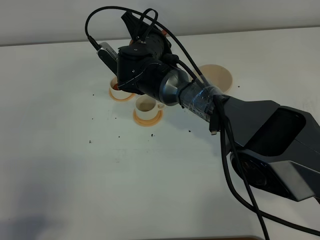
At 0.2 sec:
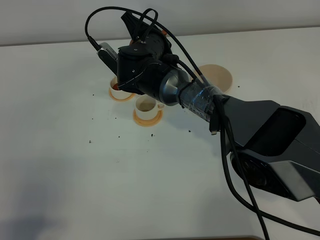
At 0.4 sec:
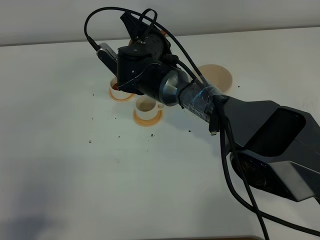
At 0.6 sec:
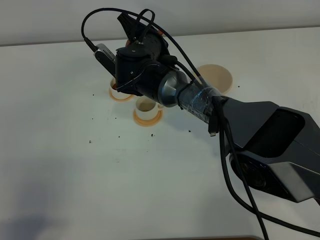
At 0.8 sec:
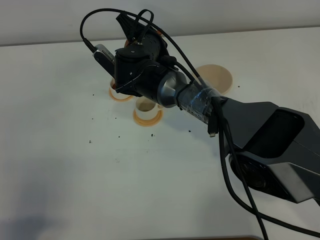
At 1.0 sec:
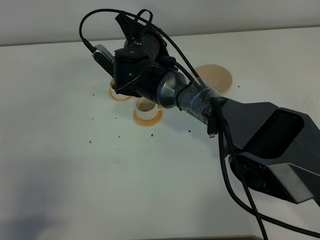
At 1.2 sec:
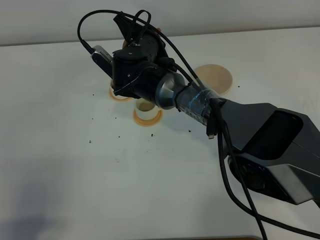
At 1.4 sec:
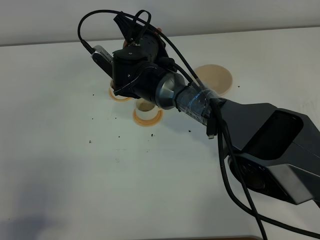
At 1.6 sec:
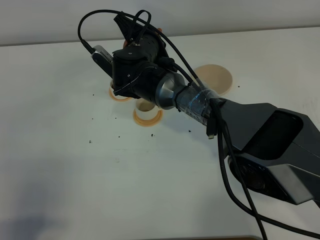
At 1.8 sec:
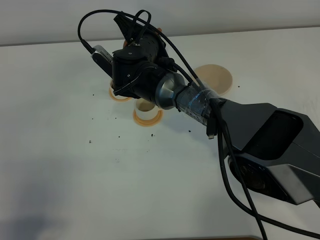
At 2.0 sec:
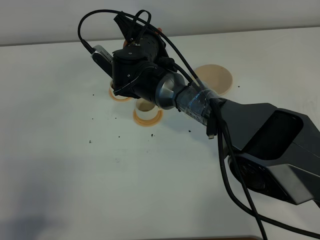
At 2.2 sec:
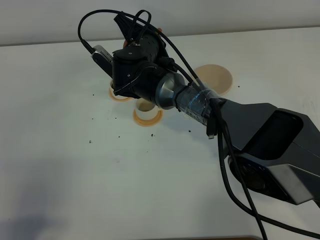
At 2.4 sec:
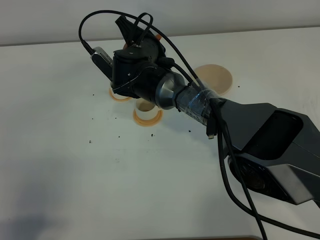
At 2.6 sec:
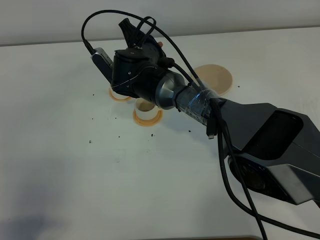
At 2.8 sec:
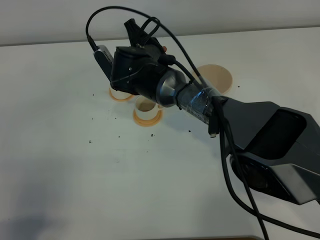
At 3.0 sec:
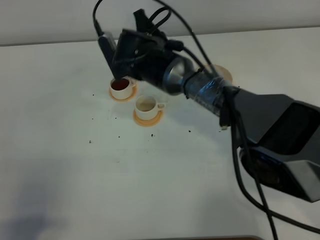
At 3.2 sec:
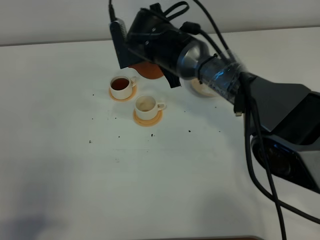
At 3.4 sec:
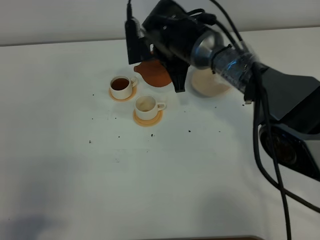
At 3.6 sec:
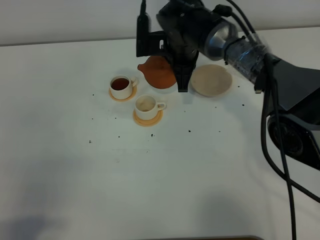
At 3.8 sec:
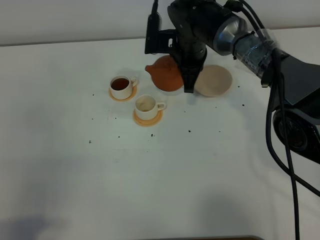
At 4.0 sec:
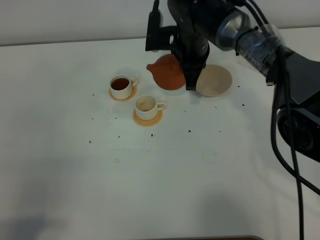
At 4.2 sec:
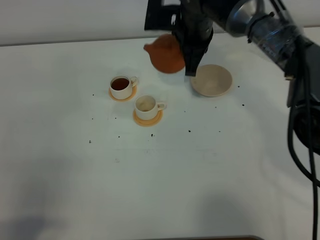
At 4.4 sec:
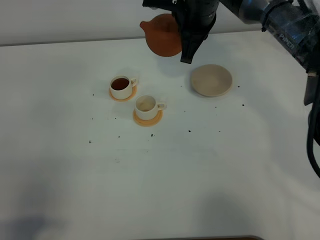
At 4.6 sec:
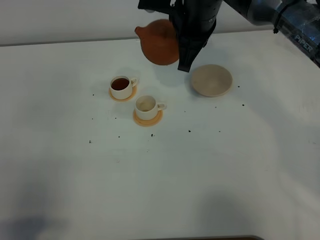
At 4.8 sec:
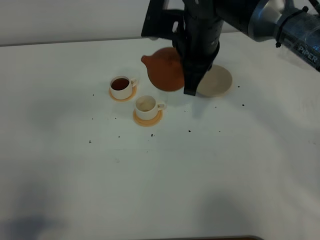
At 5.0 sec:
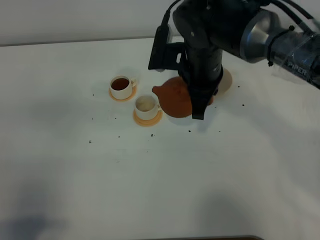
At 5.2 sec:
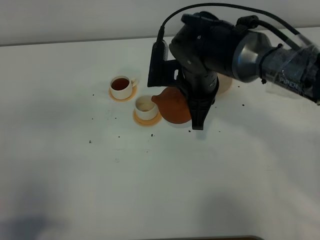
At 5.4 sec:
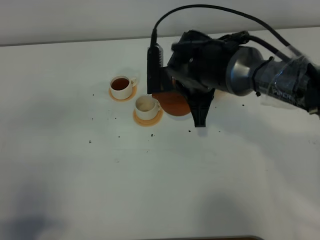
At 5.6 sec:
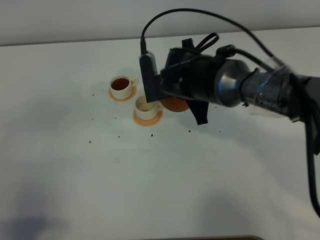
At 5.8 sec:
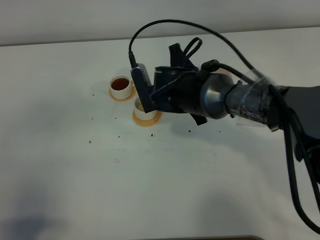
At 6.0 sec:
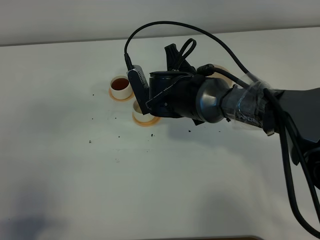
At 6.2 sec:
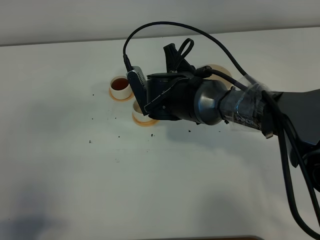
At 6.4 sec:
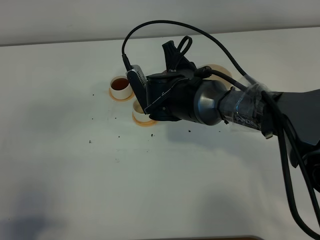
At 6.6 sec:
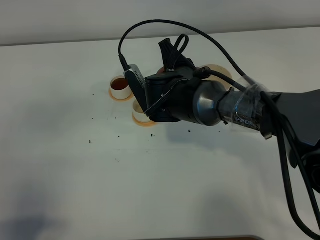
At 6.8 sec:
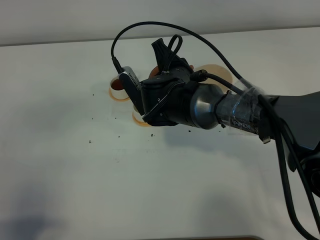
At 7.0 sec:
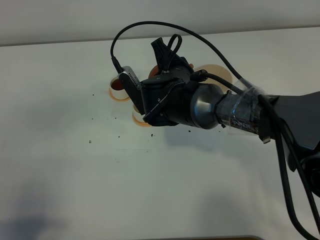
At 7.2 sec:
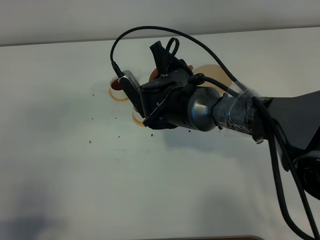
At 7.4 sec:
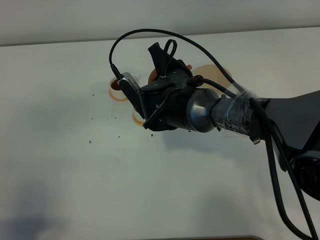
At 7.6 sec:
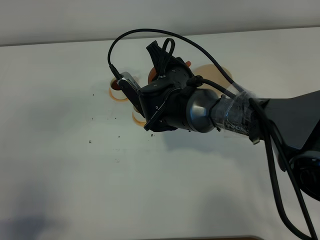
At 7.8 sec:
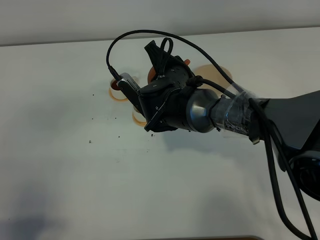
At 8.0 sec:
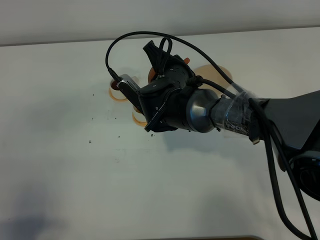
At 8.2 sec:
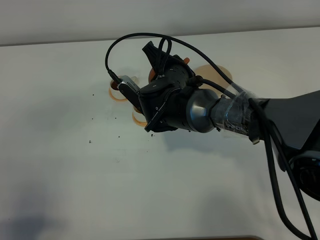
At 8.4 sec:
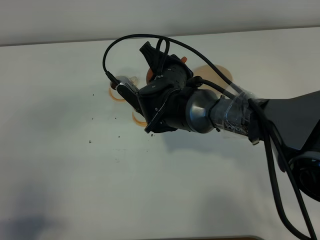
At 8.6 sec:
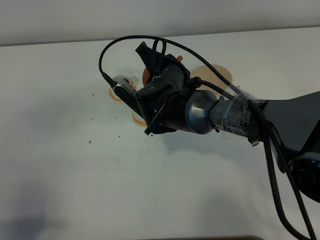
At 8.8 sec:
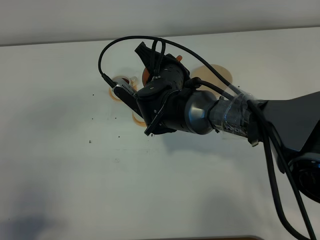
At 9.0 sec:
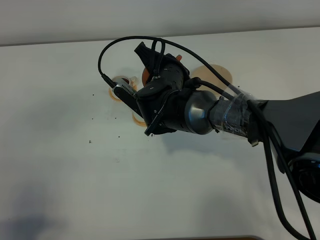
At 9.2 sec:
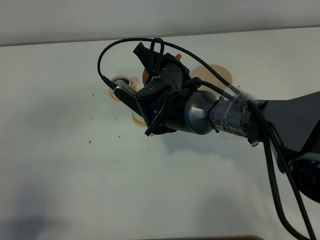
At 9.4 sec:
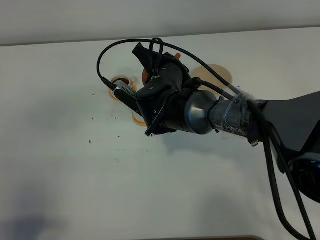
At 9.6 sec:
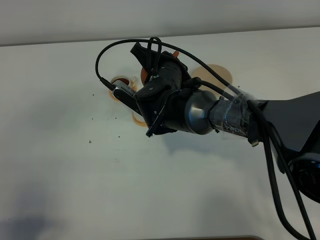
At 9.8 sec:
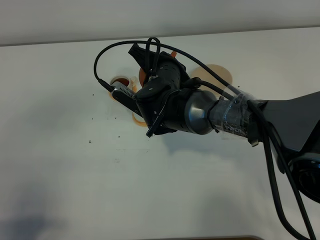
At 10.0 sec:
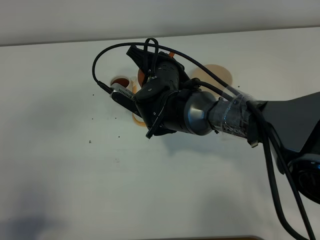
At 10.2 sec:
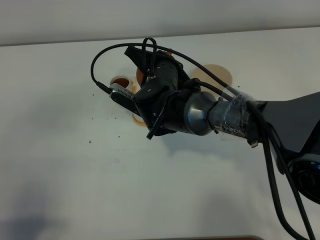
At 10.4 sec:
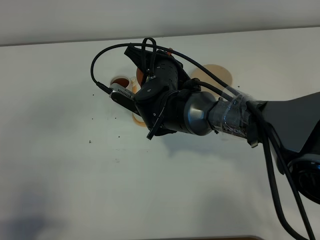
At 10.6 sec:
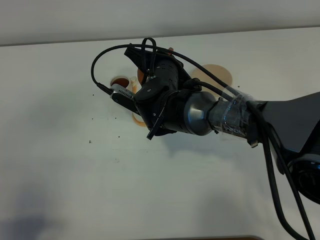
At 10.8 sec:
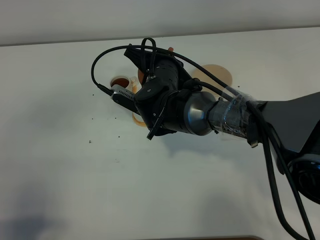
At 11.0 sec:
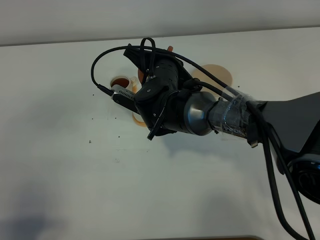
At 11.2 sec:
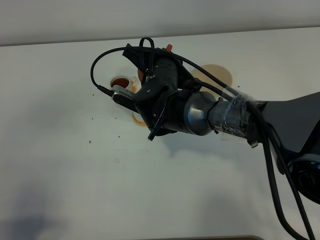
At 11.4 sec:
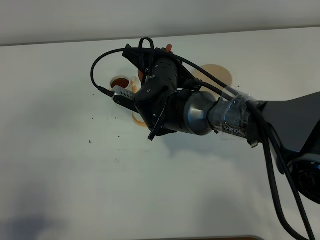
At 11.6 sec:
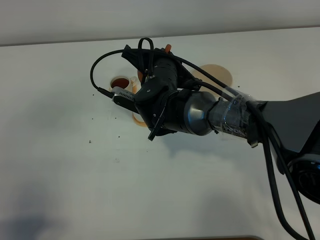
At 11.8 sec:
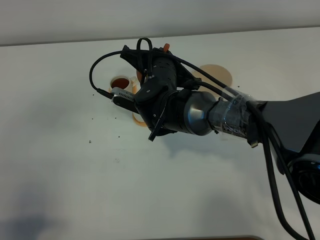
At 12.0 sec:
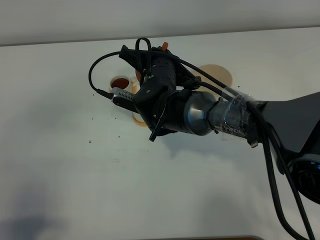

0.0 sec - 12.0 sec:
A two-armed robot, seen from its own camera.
Task of the whole recording: grasp the brown teapot and pour the tea into the two white teacups one by one, put the brown teapot back in its original place.
0.0 sec - 1.6 sec: Neither gripper changes place.
3.0 sec - 4.4 sec: The right gripper moves upward and to the right, approximately 15 cm.
4.4 sec - 6.0 sec: The right gripper is displaced downward and backward by approximately 15 cm.
6.0 sec - 7.6 sec: The grippers stay close to where they were, moving slightly.
7.6 sec - 9.0 sec: The grippers stay close to where they were, moving slightly.
9.0 sec - 12.0 sec: The grippers make only small movements.

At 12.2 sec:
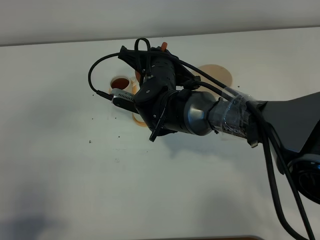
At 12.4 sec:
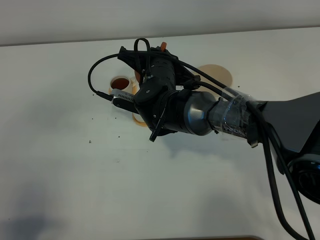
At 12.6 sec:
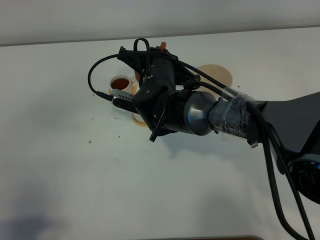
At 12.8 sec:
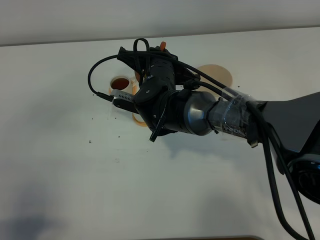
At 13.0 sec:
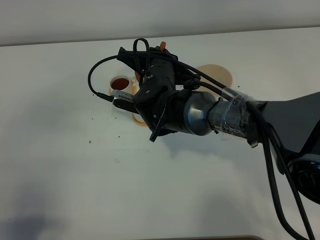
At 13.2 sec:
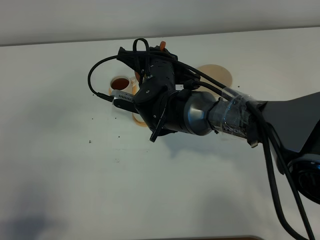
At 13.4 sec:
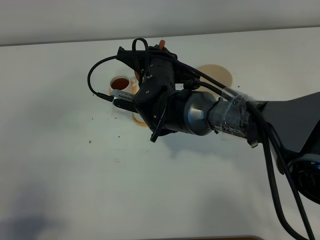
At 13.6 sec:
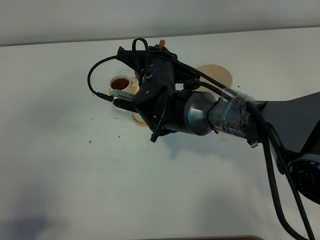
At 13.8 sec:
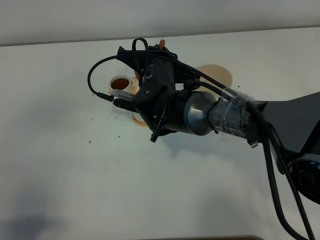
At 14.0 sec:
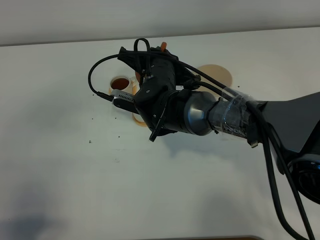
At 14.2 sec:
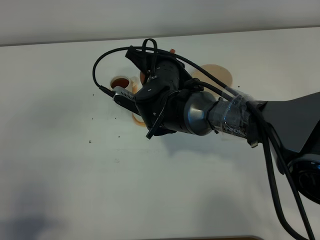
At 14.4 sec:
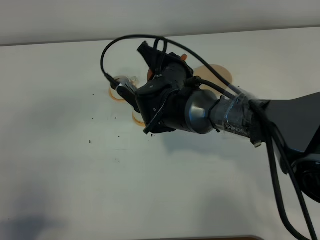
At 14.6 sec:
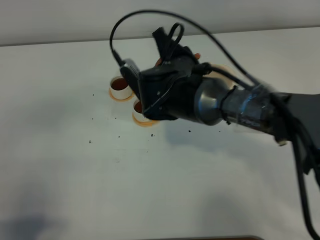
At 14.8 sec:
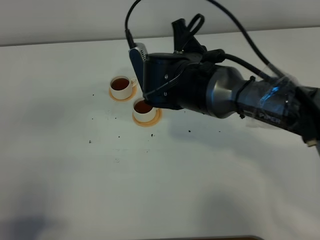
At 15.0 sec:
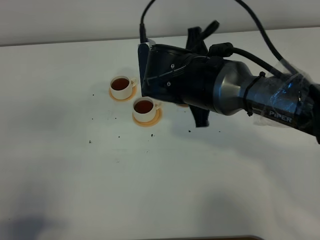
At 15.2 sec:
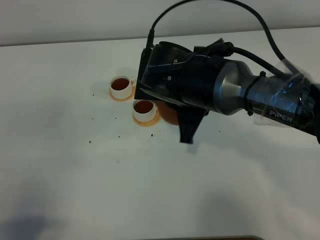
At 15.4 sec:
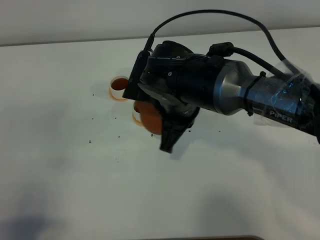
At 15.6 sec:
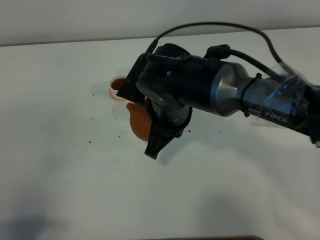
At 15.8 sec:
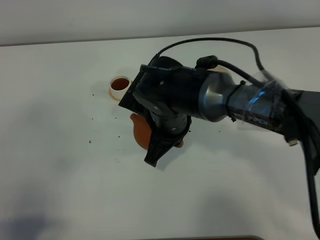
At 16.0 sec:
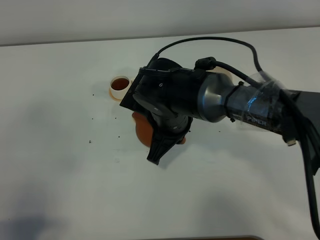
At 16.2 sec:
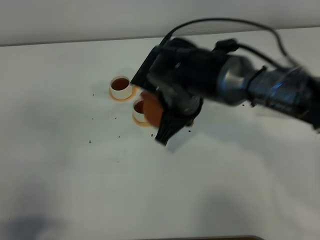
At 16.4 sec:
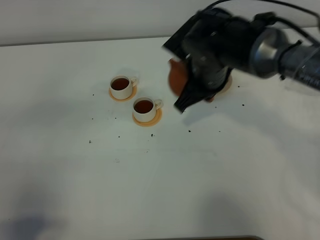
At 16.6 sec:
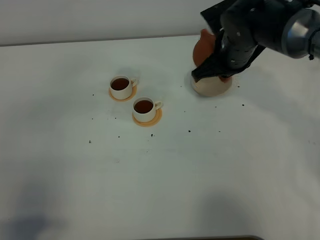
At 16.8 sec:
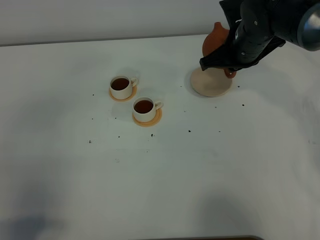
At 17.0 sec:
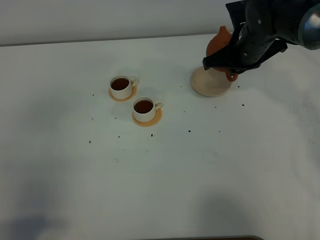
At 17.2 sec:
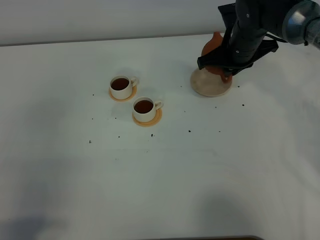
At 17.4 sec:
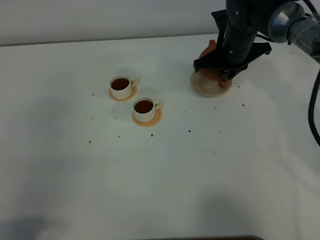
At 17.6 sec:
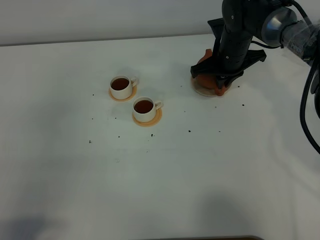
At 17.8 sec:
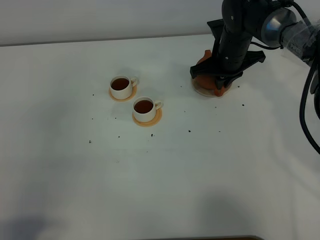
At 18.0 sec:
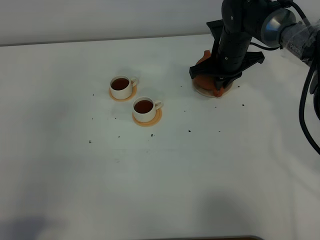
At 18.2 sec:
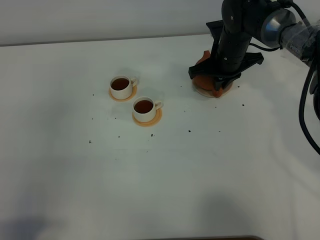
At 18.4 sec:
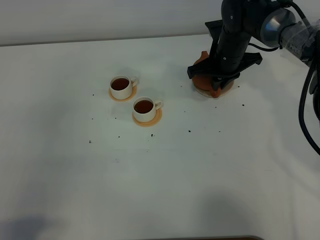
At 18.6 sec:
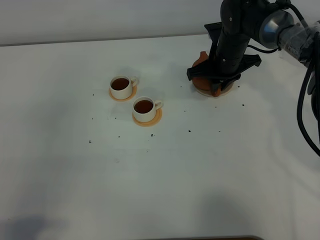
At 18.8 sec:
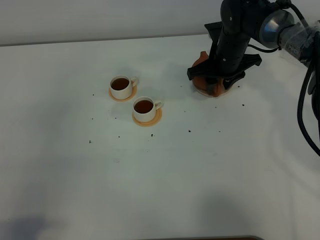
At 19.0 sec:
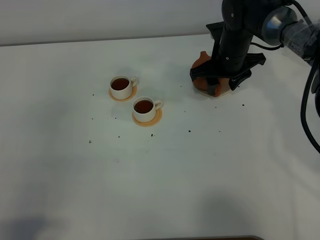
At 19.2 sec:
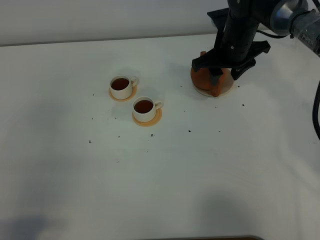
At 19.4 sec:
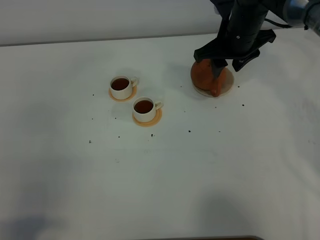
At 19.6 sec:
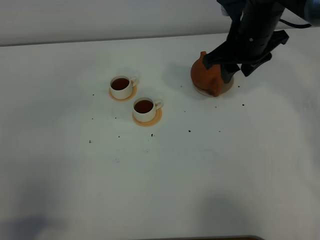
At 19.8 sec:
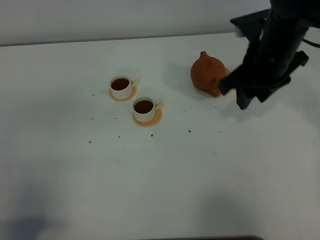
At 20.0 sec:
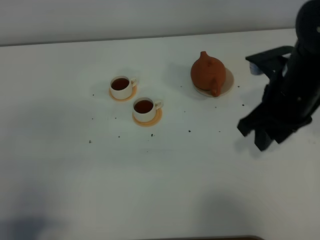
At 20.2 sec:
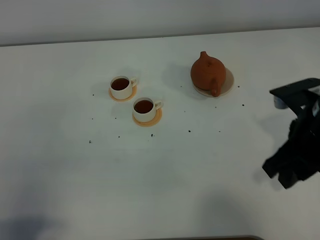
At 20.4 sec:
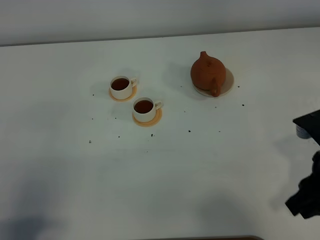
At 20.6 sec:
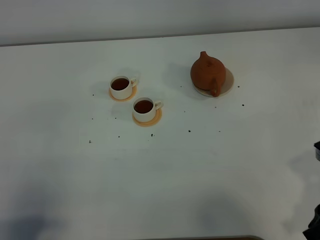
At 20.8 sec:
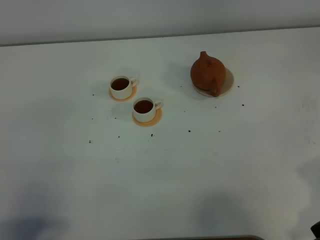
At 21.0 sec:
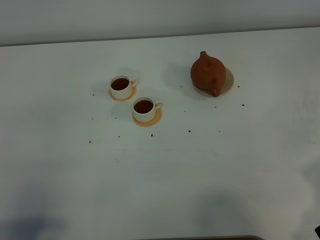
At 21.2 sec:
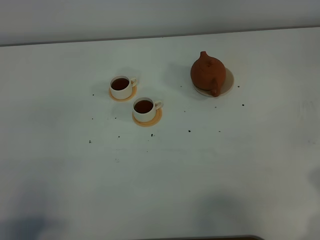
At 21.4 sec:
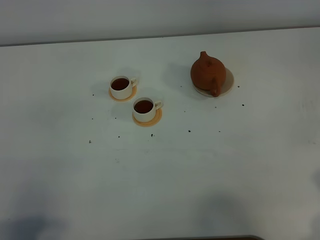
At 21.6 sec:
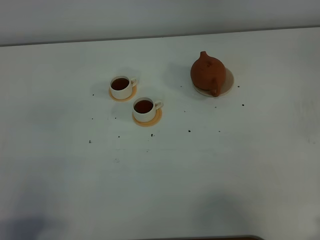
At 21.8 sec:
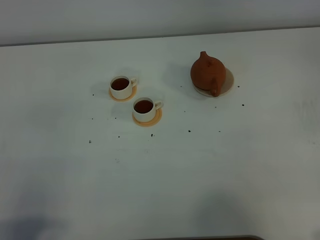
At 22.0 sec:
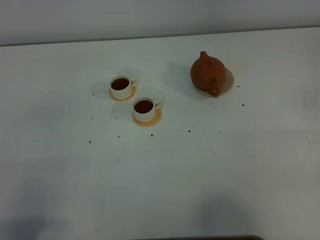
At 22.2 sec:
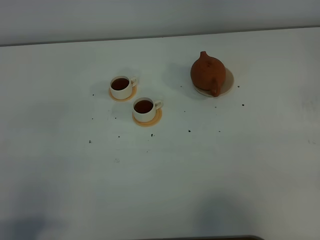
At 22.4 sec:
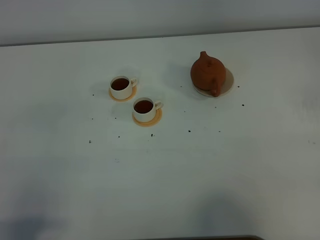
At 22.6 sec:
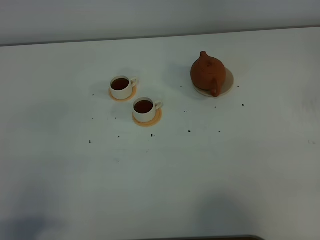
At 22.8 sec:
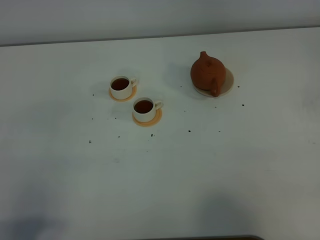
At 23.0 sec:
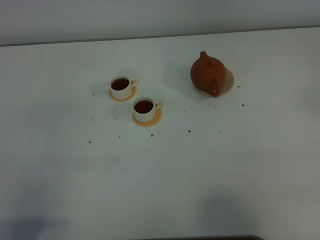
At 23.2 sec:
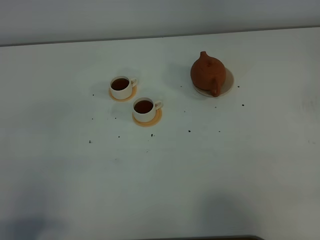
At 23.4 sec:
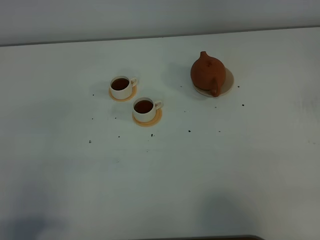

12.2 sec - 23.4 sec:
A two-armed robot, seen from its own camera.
Task of the whole recording: grasp the brown teapot and pour the tea into the two white teacups one by one, put the brown teapot back in its original place.
Step, 12.2 sec - 16.2 sec: Pour tea into the teacup with the right gripper.
12.2 sec - 13.8 sec: The two grippers keep their place.
13.8 sec - 15.4 sec: The right gripper shifts approximately 5 cm backward.
15.4 sec - 17.0 sec: The right gripper is displaced forward and to the right by roughly 20 cm.
17.0 sec - 18.6 sec: The right gripper shifts approximately 5 cm downward, and opens its fingers.
18.6 sec - 20.2 sec: The right gripper goes approximately 25 cm backward and to the right.
20.2 sec - 21.8 sec: The right gripper moves backward and to the right, about 15 cm.
